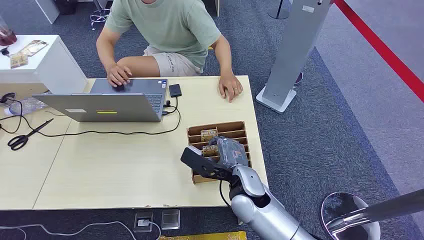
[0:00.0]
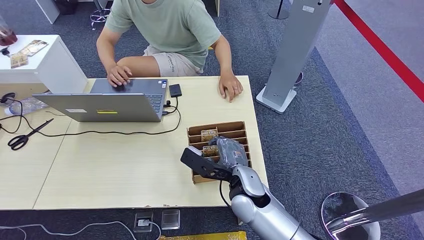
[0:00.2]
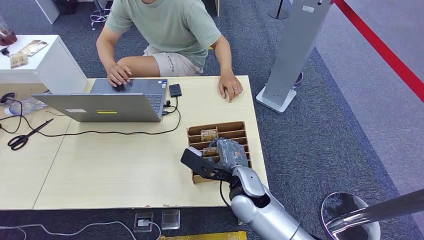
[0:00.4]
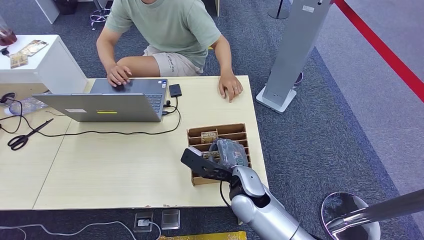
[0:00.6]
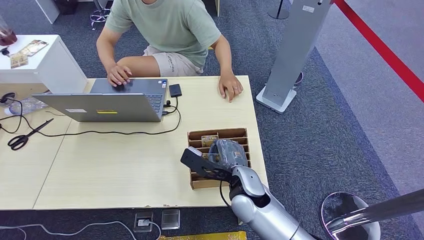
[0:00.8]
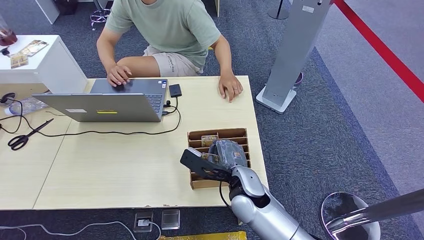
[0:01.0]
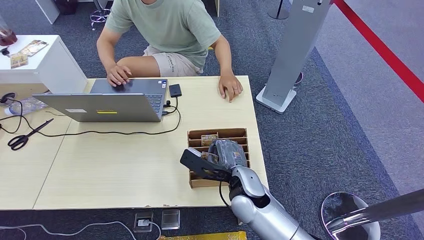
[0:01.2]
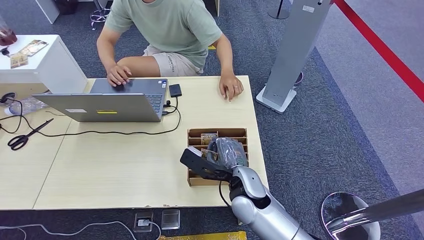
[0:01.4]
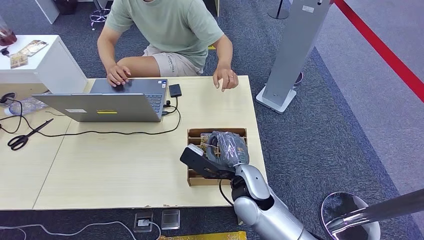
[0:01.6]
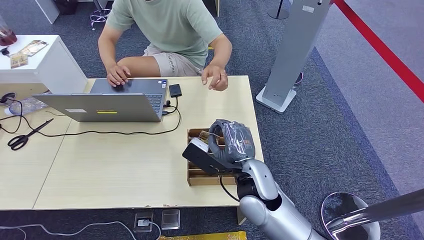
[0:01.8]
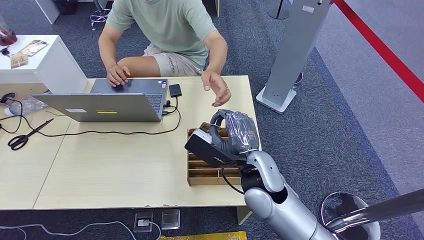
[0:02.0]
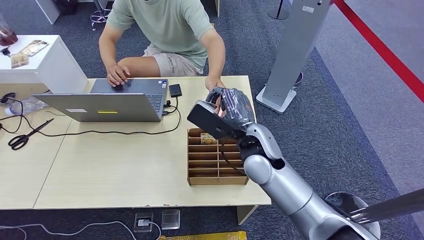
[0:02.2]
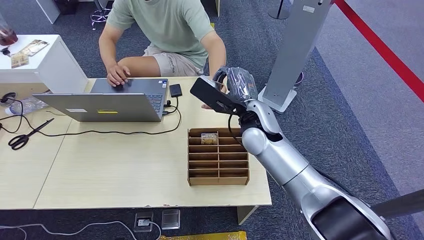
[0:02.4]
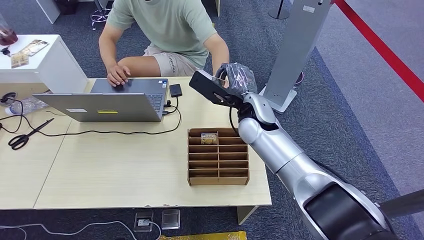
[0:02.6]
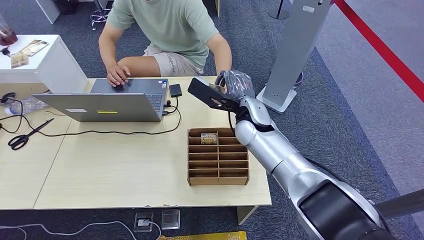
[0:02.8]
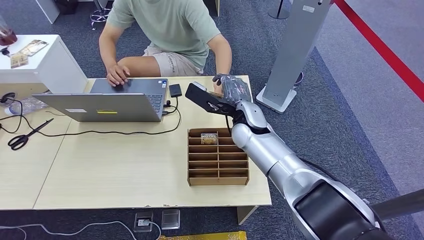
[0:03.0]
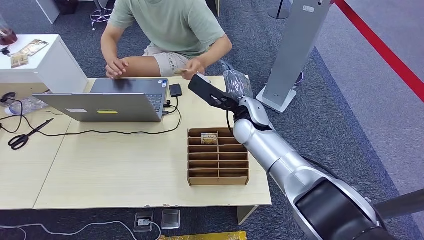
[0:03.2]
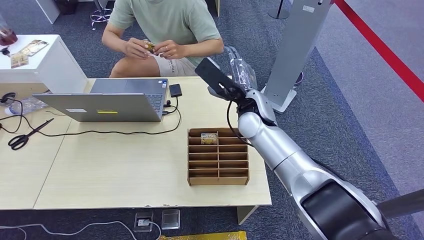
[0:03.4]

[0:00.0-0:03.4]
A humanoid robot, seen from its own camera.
Step, 0:00.0 to 0:01.8: Pick up the room card from the card holder.
Step, 0:02.8 to 0:03.4: Hand the room card to the target.
0:01.6 to 0:03.4: The right hand is displaced forward and upward by roughly 20 cm.
